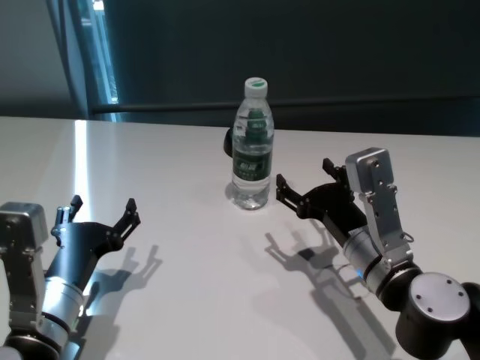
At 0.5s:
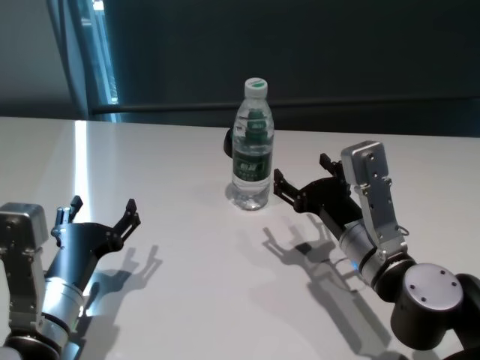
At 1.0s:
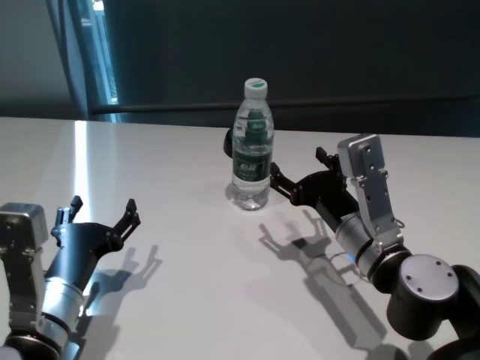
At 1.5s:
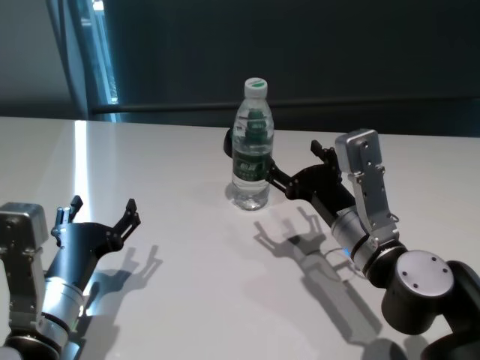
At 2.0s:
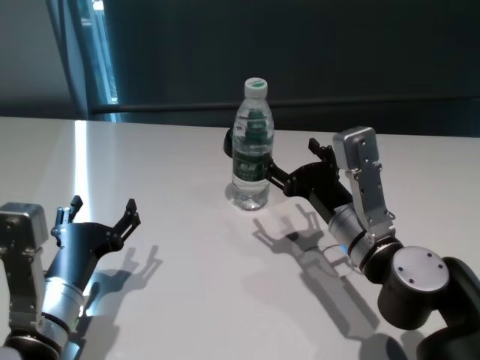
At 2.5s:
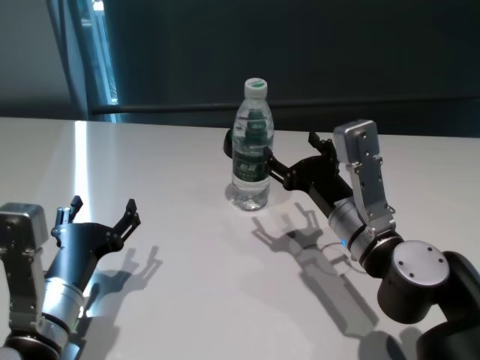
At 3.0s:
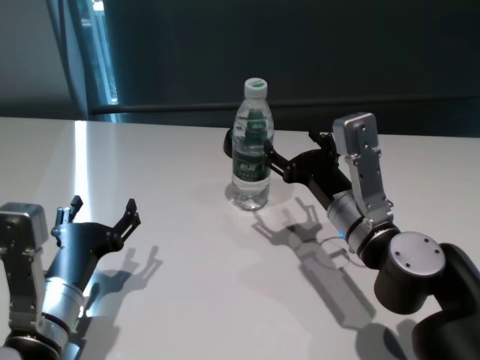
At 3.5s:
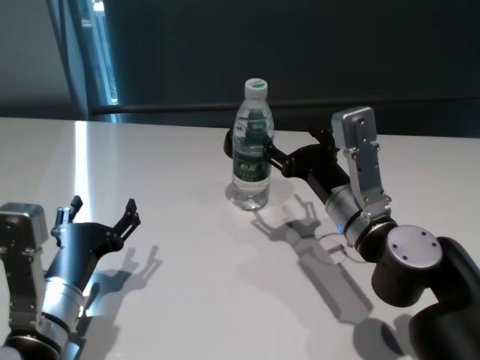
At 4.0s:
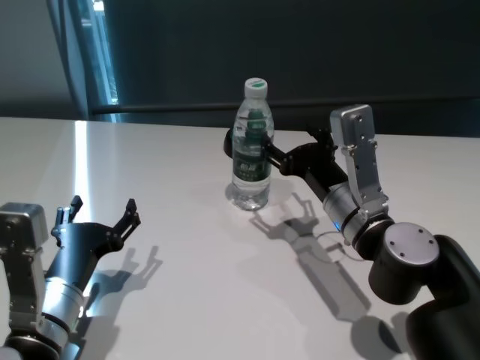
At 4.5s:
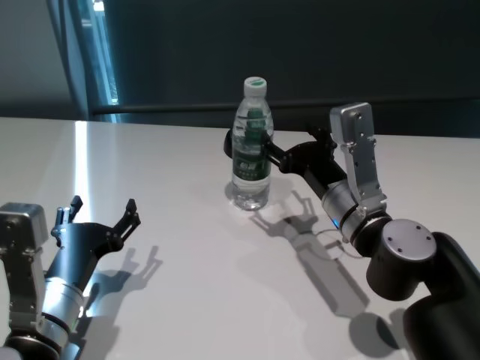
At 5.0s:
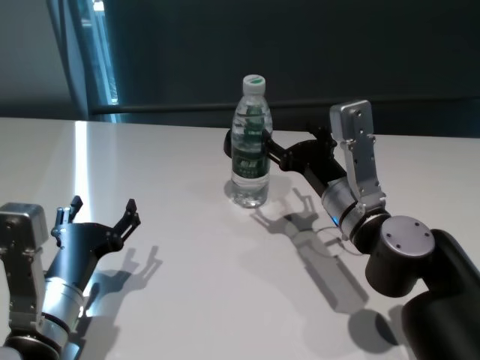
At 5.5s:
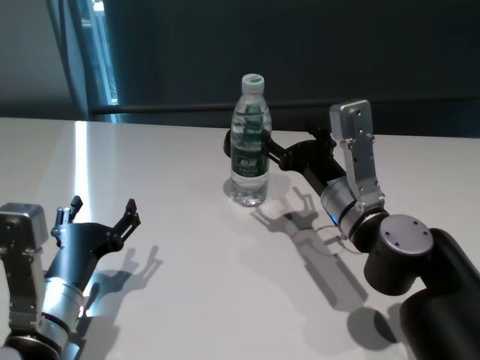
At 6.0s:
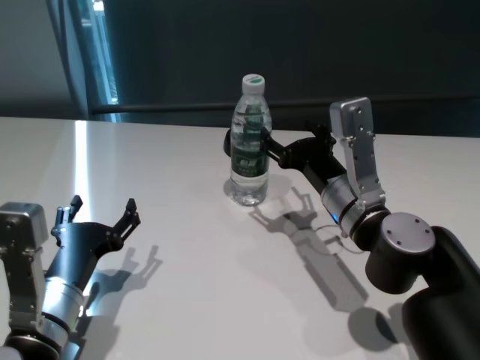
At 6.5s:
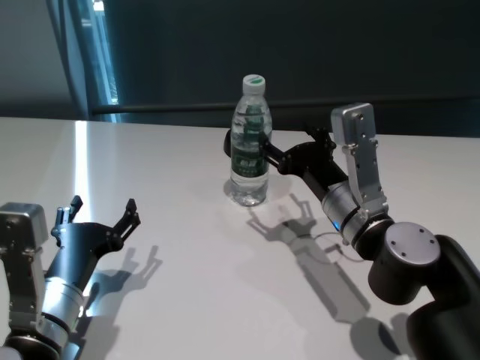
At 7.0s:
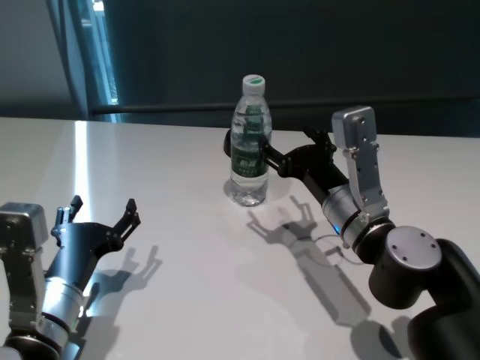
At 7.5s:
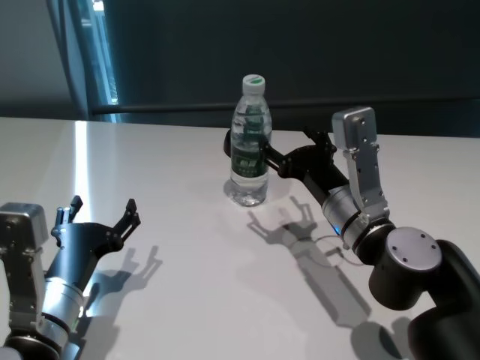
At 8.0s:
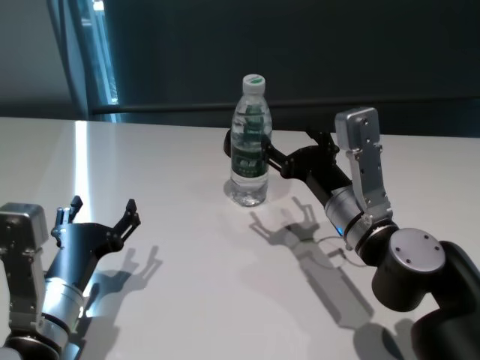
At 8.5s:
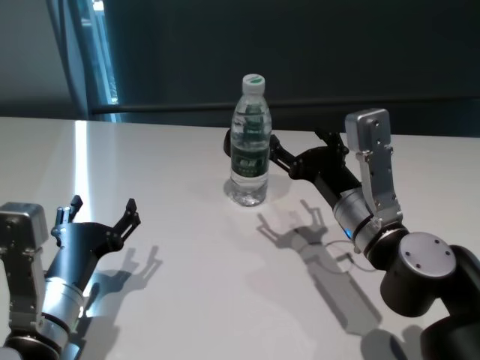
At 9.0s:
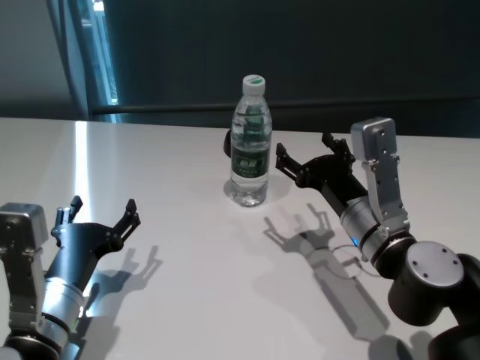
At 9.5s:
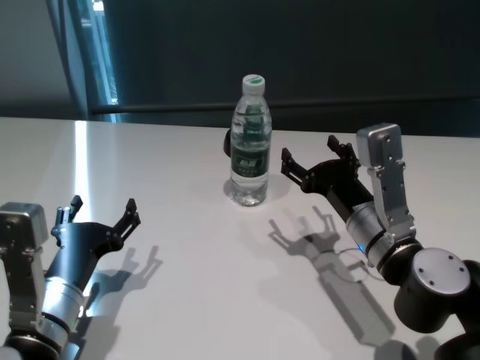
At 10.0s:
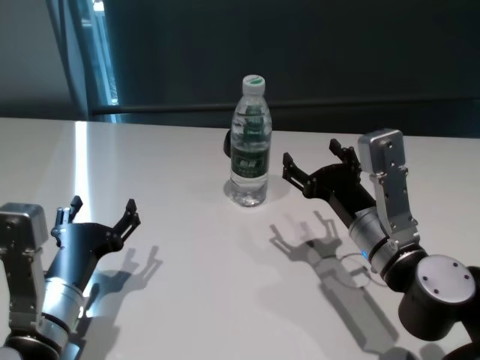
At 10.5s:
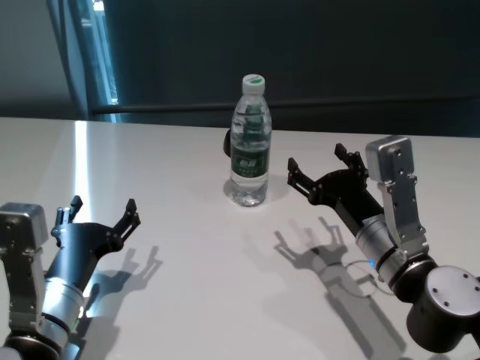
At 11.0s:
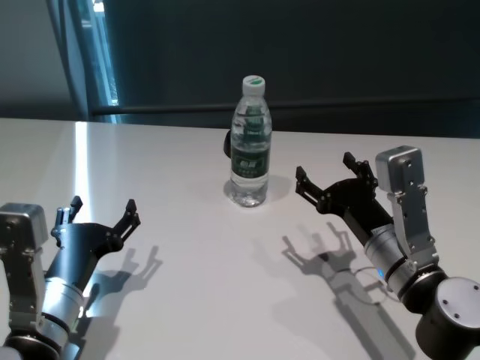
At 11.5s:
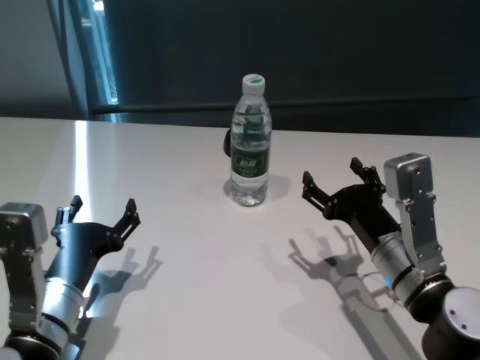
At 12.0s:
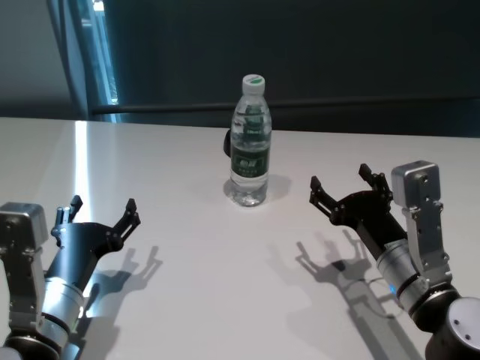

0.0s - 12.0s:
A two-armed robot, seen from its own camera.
Task of the whole recording: return to a safe position after touching an obstacle with your arm on the white table.
Step, 0.0s - 9.0s: Touch the bottle with right gripper.
